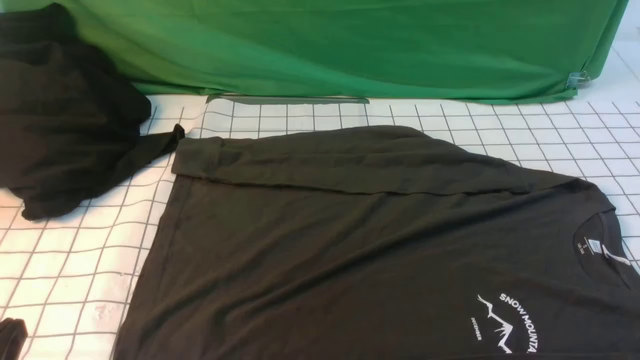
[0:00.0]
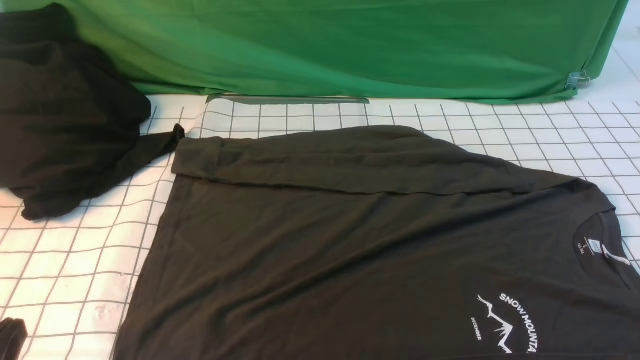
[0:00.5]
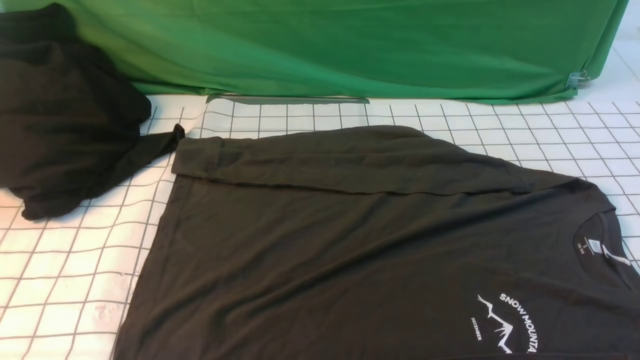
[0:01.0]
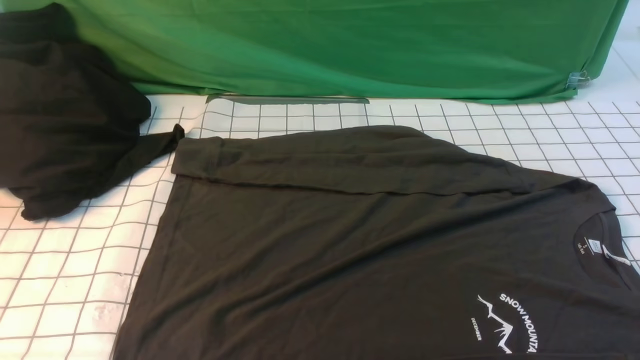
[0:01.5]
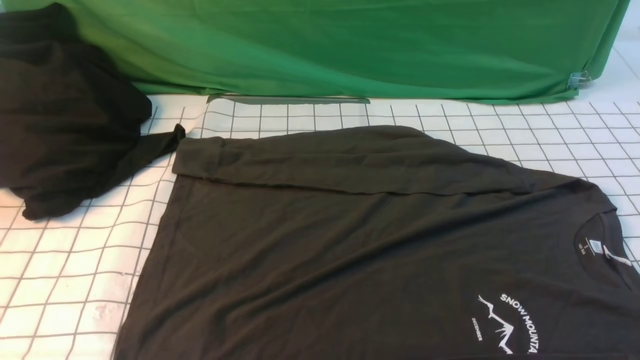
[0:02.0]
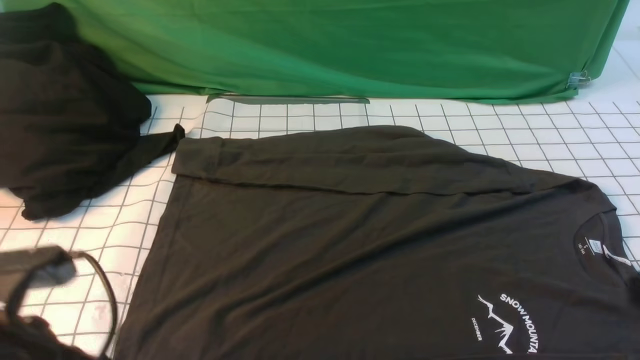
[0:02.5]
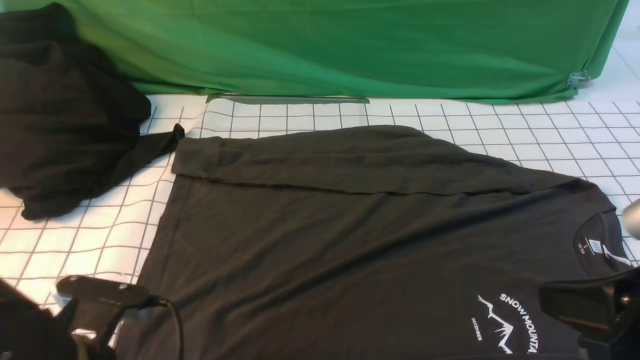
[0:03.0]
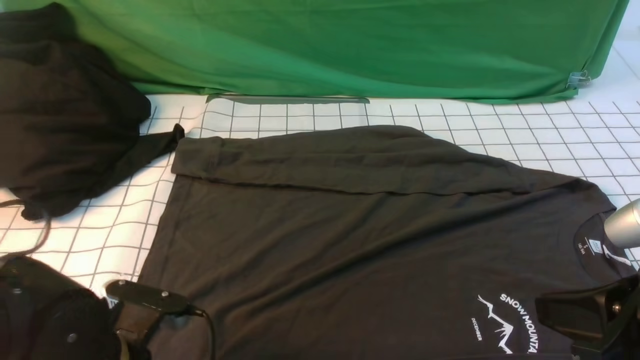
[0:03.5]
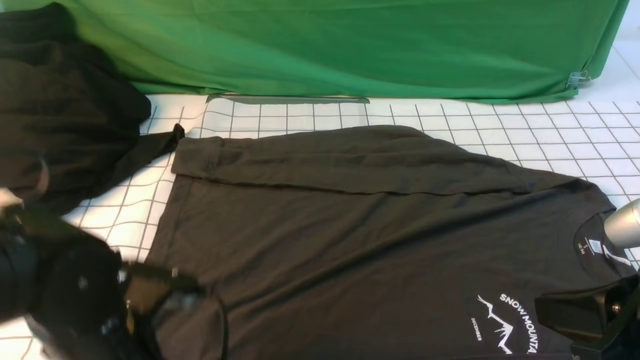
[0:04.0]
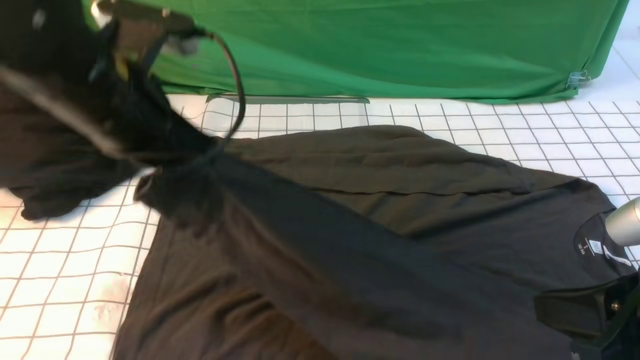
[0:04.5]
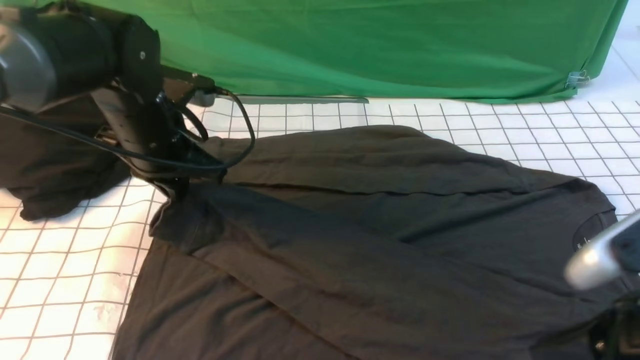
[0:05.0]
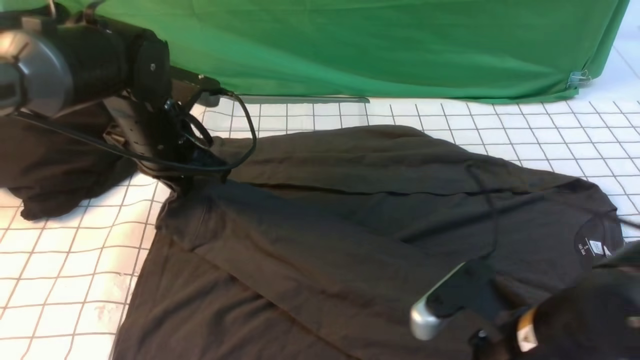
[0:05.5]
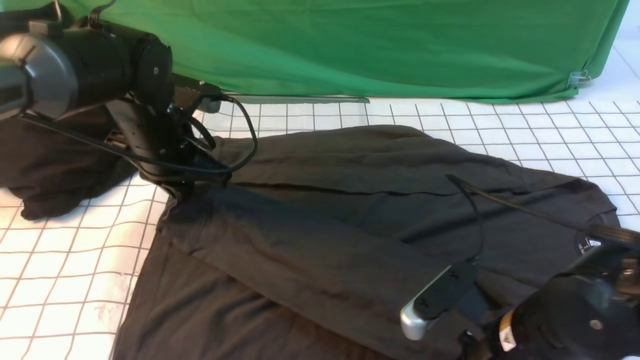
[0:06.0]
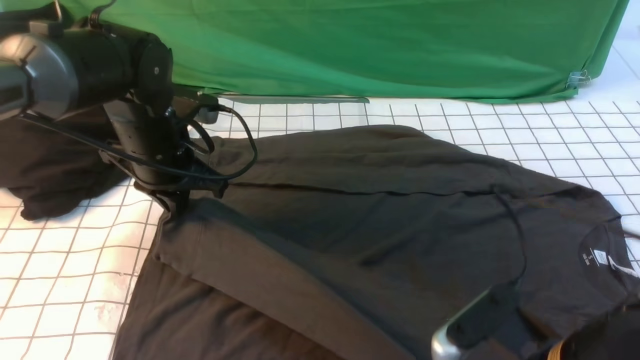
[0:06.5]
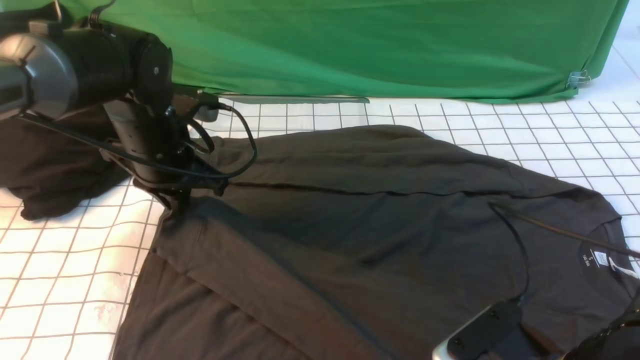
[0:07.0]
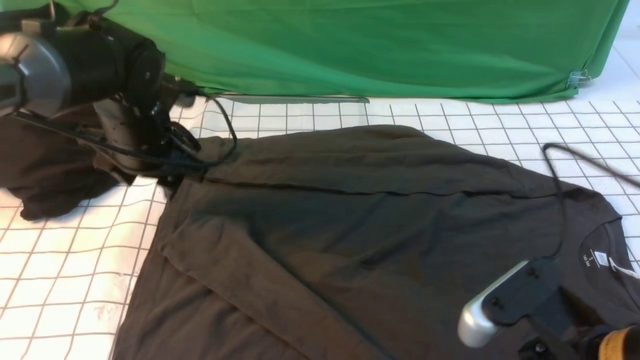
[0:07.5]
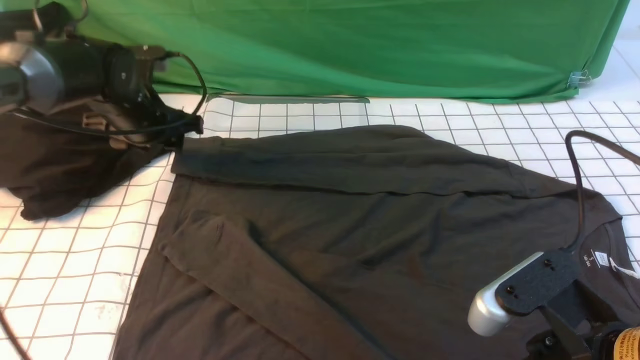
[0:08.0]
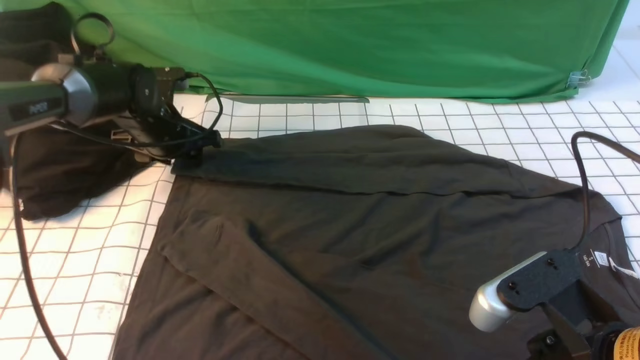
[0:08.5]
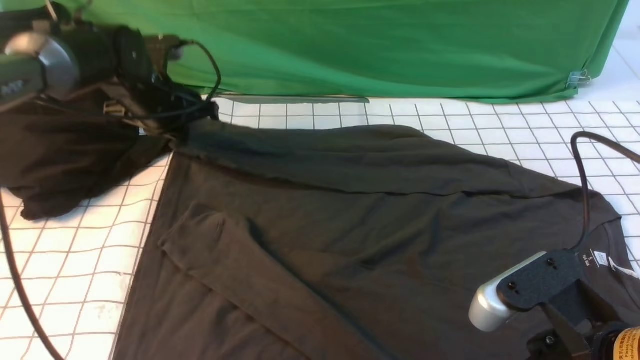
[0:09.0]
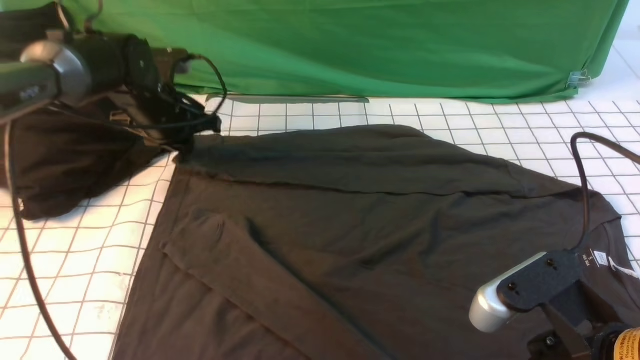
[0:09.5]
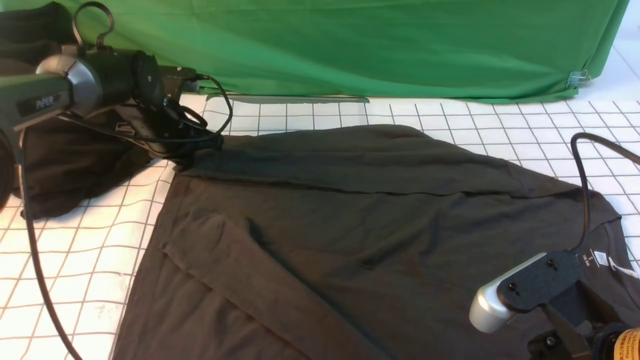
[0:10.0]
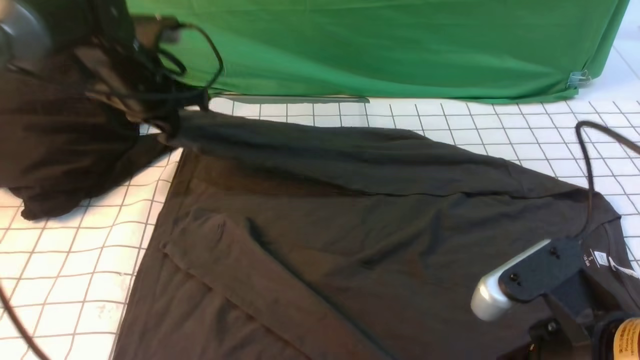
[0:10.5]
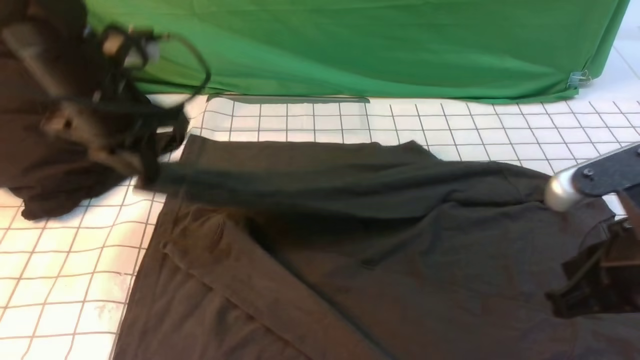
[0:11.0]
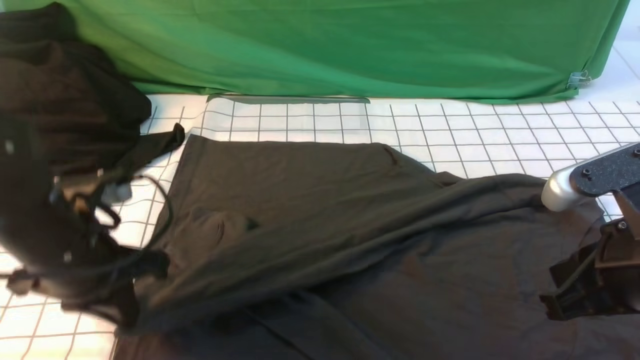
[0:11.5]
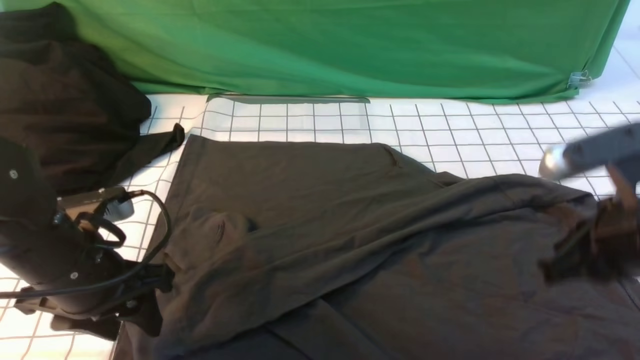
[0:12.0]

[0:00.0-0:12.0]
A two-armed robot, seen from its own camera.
Step, 0:00.0 to 0:04.0: use the left arm to clamp the cuff closest to it.
Step, 0:04.5 to 0:07.5: use the left arm to drag and place the cuff at the centered position on the left edge of the fabric.
Step, 0:08.0 to 0:10.0: use the left arm to clamp the cuff farthest from it.
0:02.0 to 0:04.0: The right gripper shifts approximately 10 cm to the left and forward. The left gripper is displaced downward, forward and to the right by approximately 20 cm, and opens, then closes again.
0:04.0 to 0:06.0: The right gripper is displaced downward, to the left and forward by some 15 cm, and opens, then closes again, while the left gripper is displaced forward by about 20 cm.
0:06.0 to 0:08.0: The left gripper travels forward by some 5 cm, and opens up; the right gripper shifts approximately 10 cm upward and backward, and opens up.
0:08.0 to 0:10.0: The left gripper closes.
0:10.0 to 0:12.0: The left gripper moves backward, about 25 cm, and opens up. Meanwhile the right gripper shifts about 10 cm forward, and closes up.

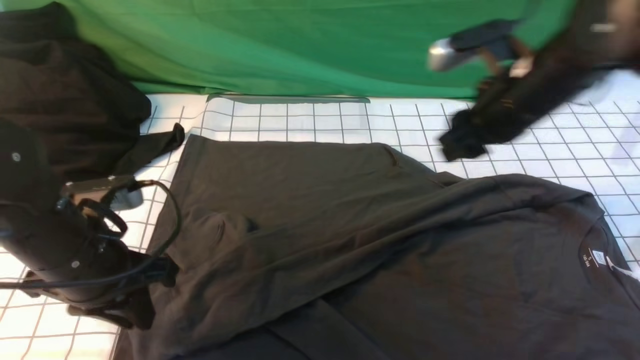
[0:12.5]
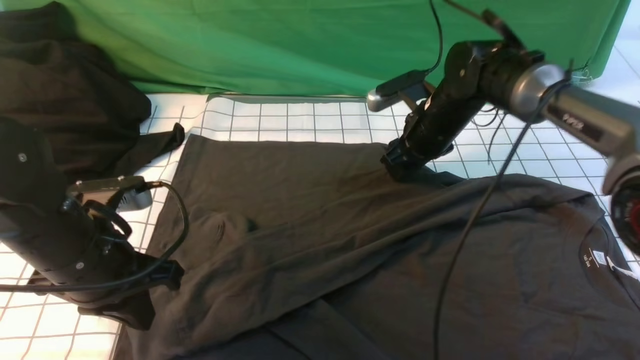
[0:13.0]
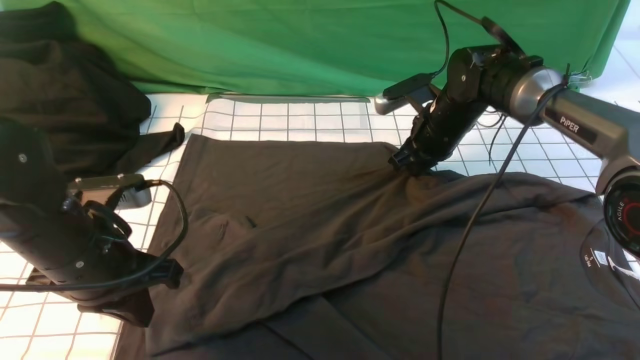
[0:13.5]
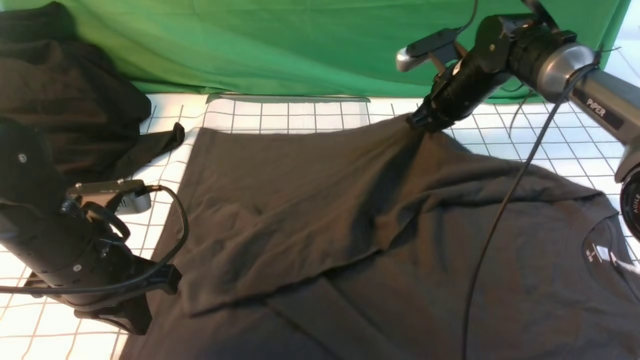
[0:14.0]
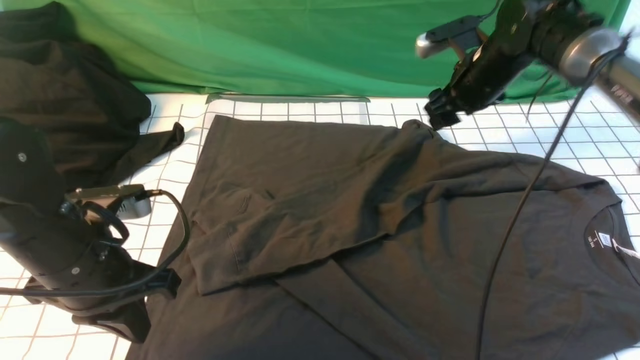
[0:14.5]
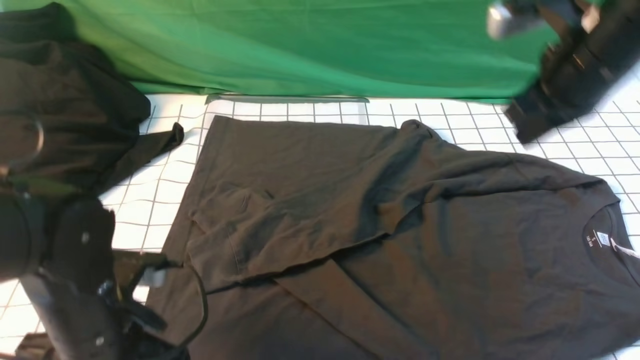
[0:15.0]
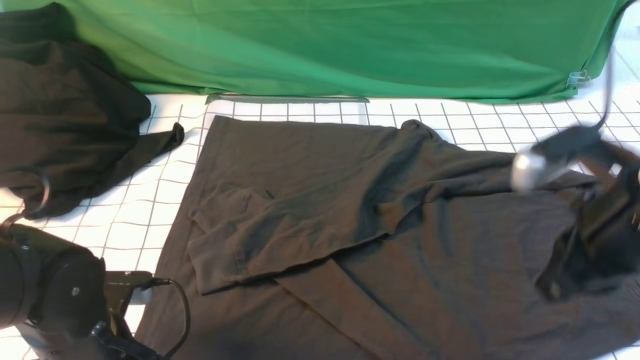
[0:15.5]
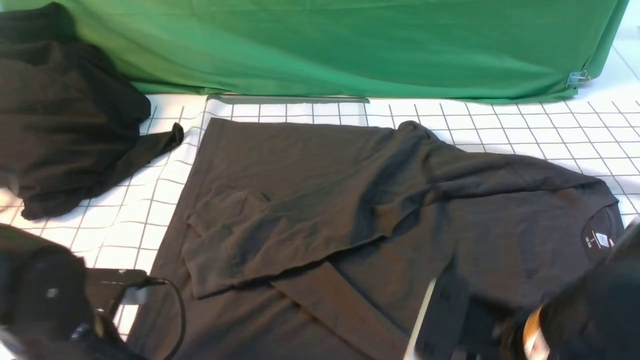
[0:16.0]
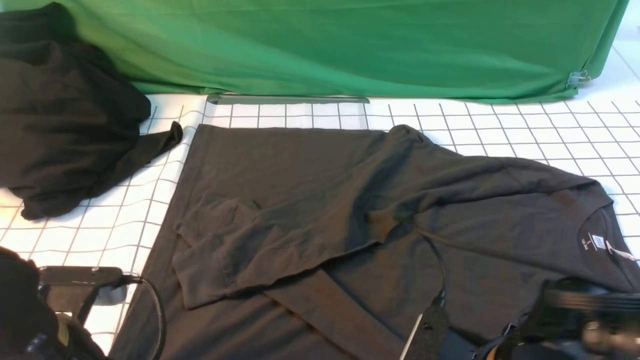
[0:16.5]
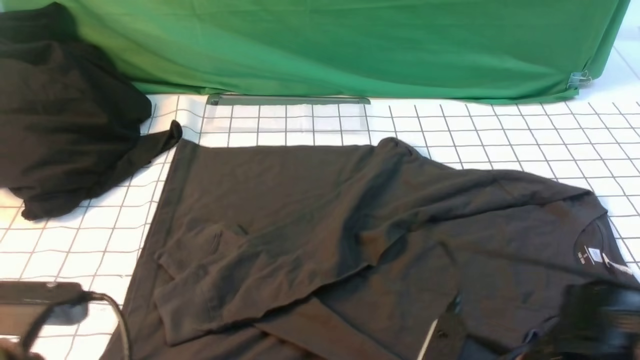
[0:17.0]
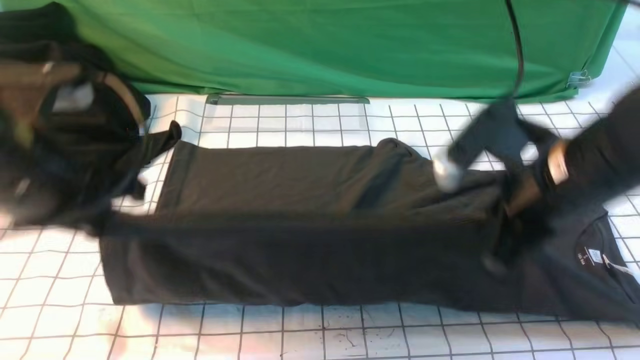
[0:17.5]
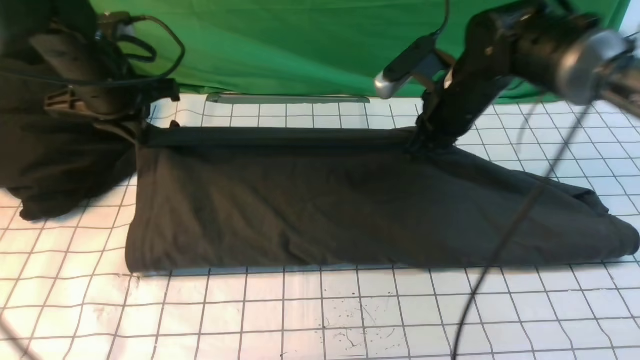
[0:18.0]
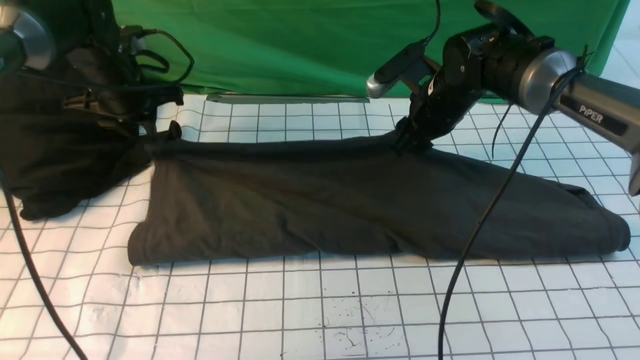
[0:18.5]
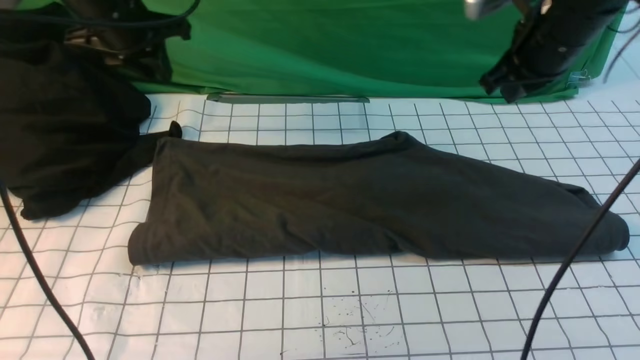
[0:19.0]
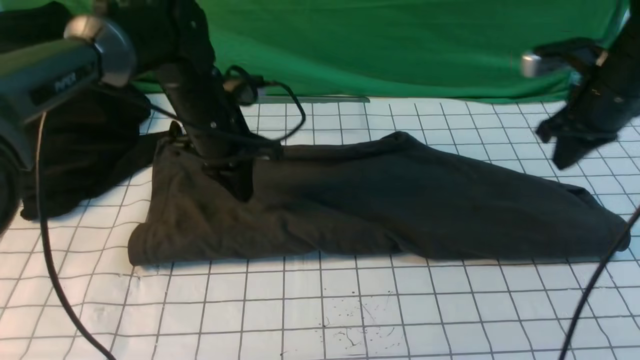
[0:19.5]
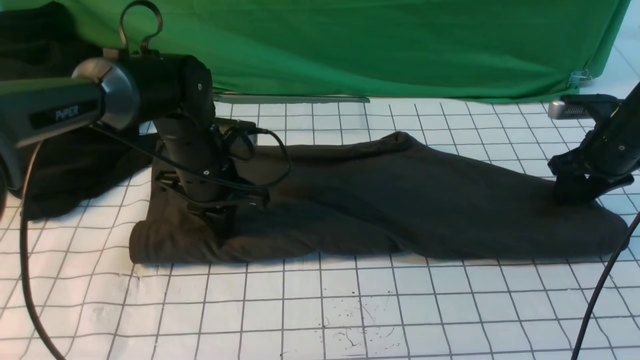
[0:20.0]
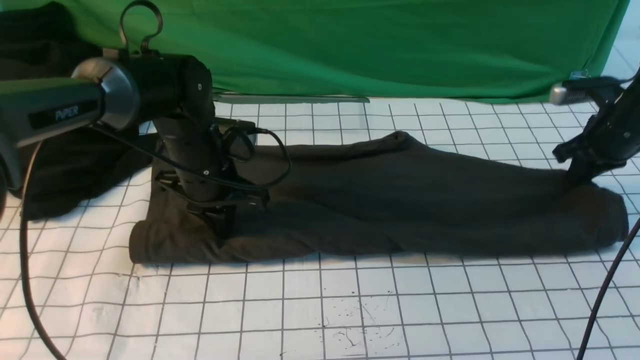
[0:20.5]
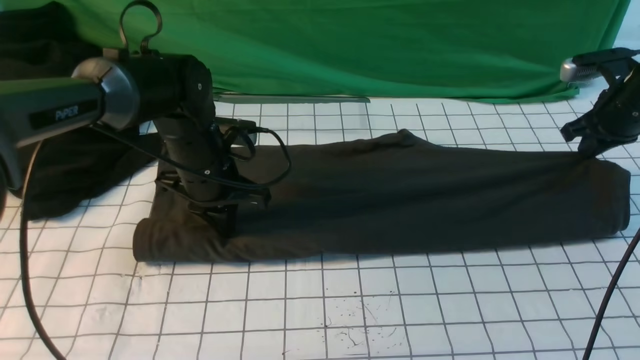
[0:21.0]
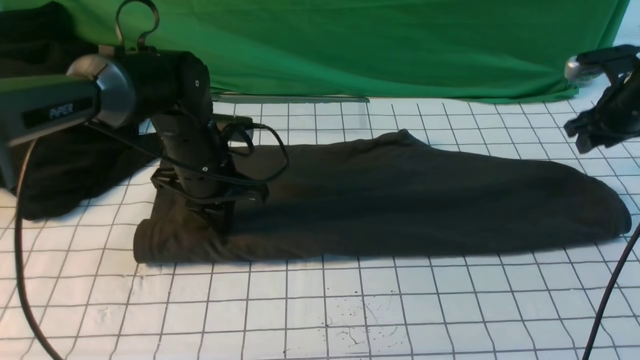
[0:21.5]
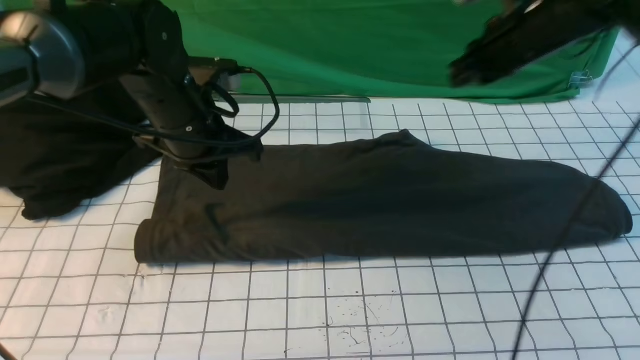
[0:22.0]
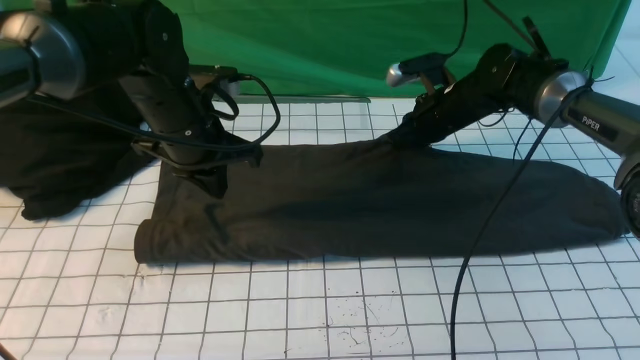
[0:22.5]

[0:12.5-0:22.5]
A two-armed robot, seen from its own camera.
Step, 0:12.5 to 0:17.0: use both arms simultaneously to clamp the lower edge of the clothing fabric.
Step, 0:17.5 to 0:18.5: use both arms to drag the lower edge of the fabric forward and fold it over the upper edge.
0:12.5 to 0:14.5: The left gripper closes up, while the right gripper moves forward, about 10 cm, and closes, then reopens.
0:14.5 to 0:16.5: The right gripper moves backward, roughly 35 cm, and closes and opens again. The left gripper goes roughly 10 cm backward, and opens, then closes once more.
0:16.5 to 0:18.5: Both grippers travel together forward, approximately 30 cm. The left gripper opens, while the right gripper closes, then reopens.
0:18.5 to 0:20.5: The right gripper heads to the right, covering roughly 20 cm, and closes, while the left gripper travels to the right, backward and downward by some 15 cm, and closes up.
0:20.5 to 0:22.5: The right gripper is displaced to the left by about 20 cm, and opens and closes again. The left gripper travels upward by roughly 5 cm.
